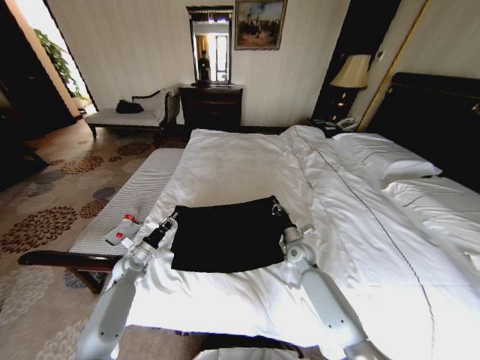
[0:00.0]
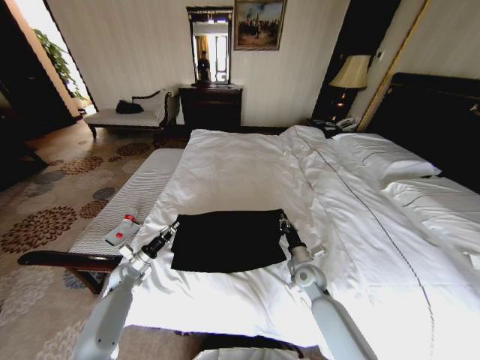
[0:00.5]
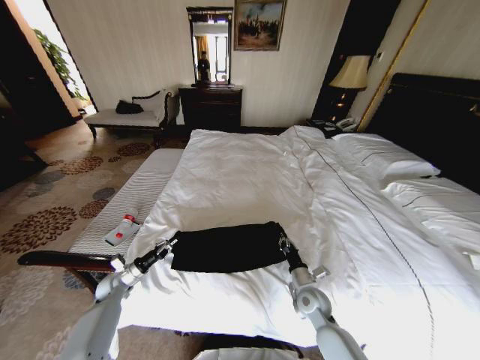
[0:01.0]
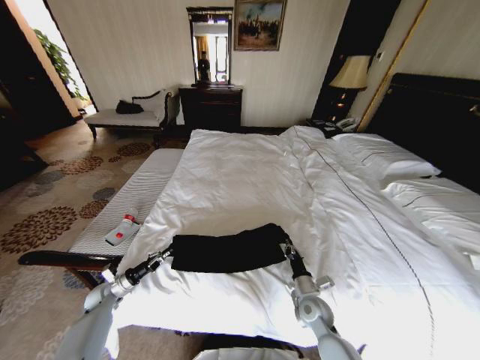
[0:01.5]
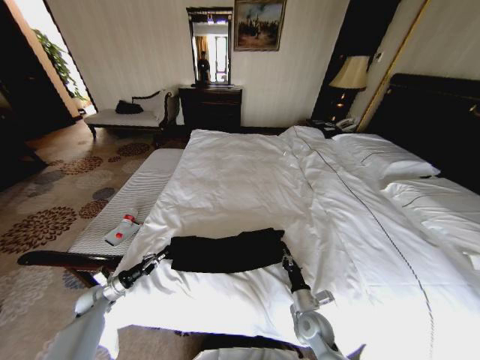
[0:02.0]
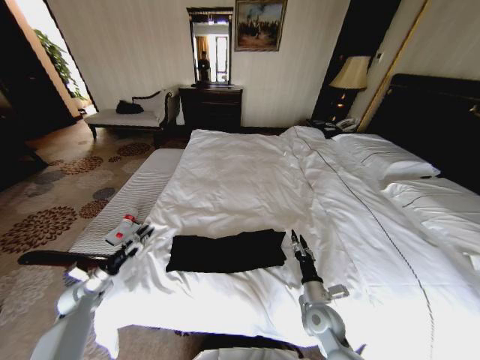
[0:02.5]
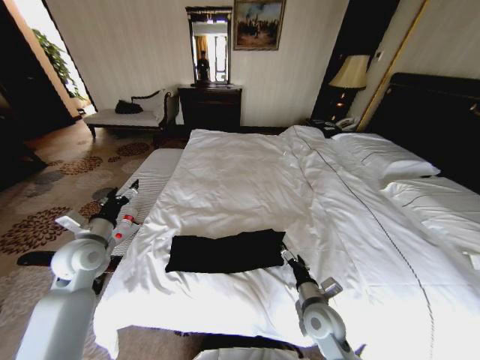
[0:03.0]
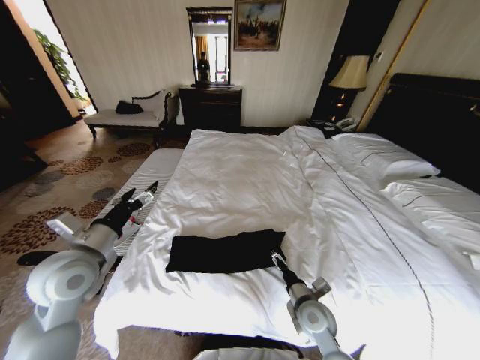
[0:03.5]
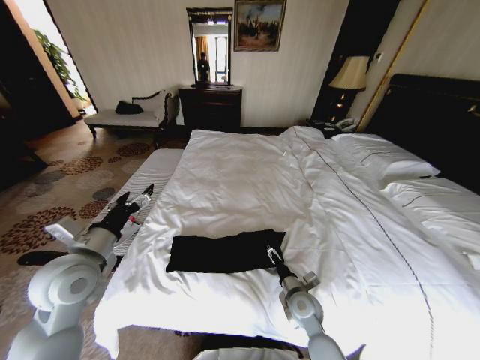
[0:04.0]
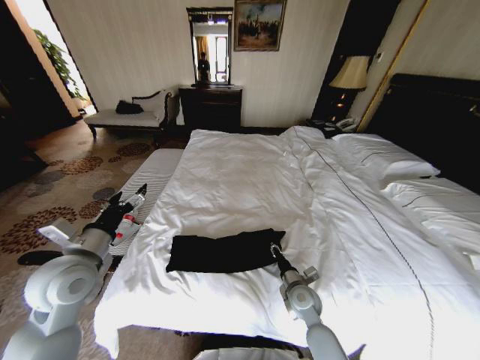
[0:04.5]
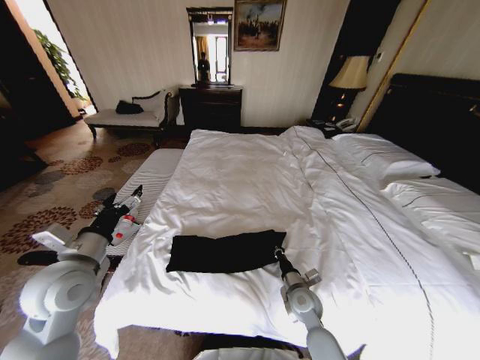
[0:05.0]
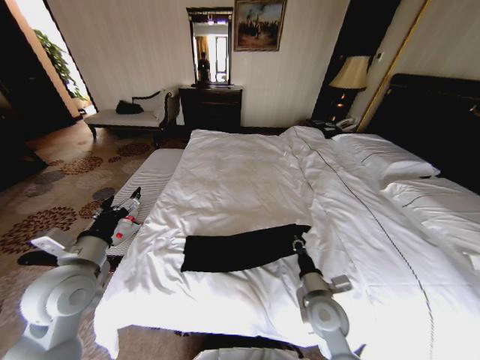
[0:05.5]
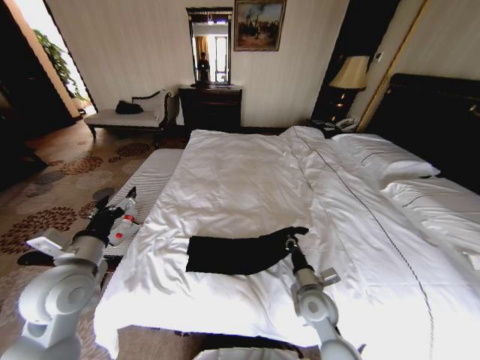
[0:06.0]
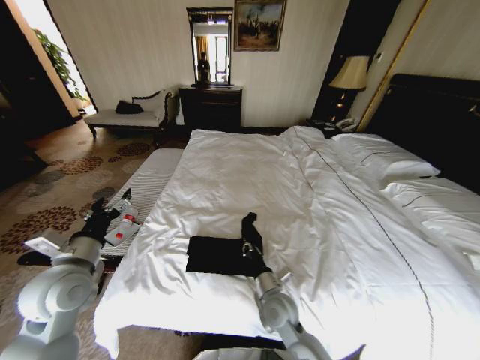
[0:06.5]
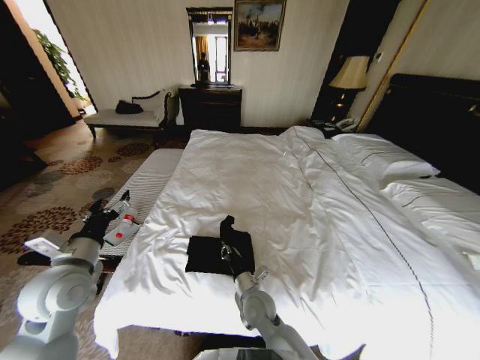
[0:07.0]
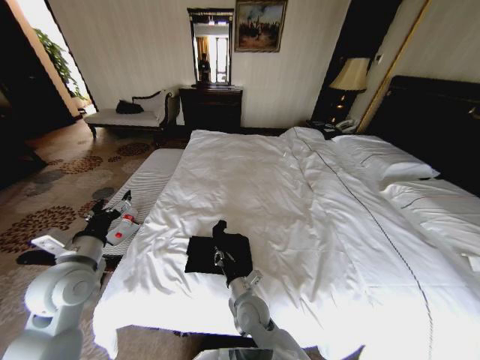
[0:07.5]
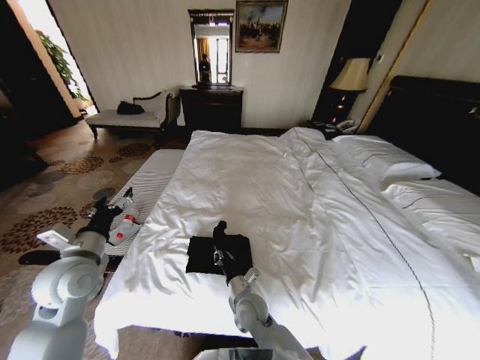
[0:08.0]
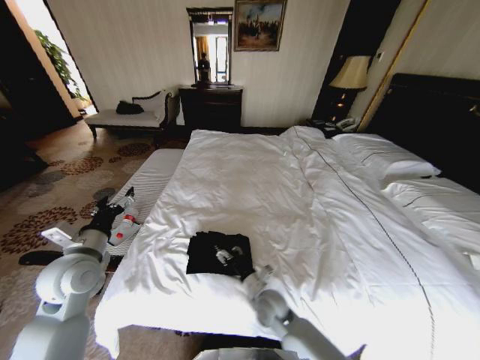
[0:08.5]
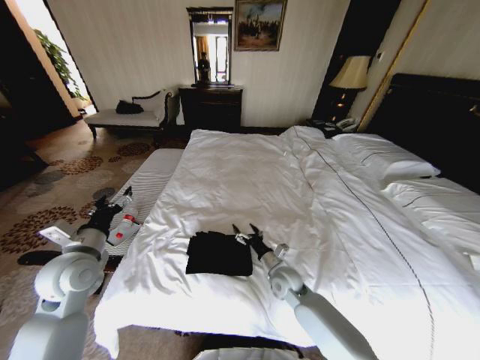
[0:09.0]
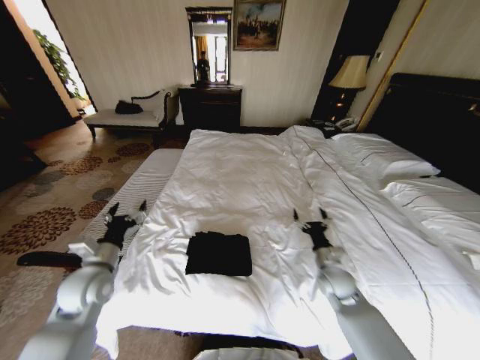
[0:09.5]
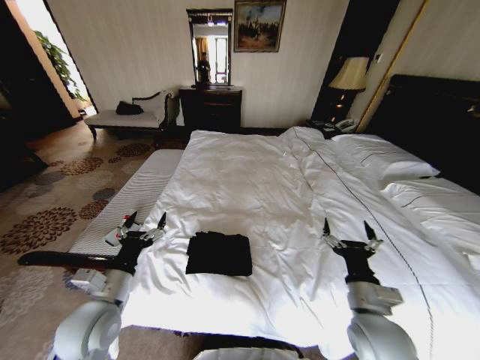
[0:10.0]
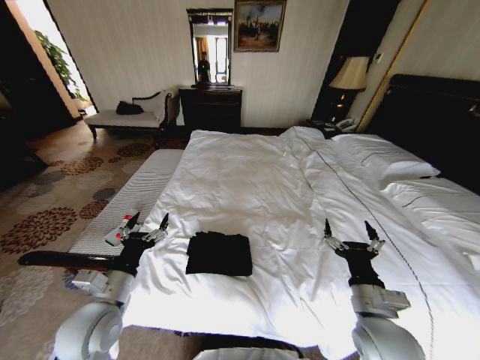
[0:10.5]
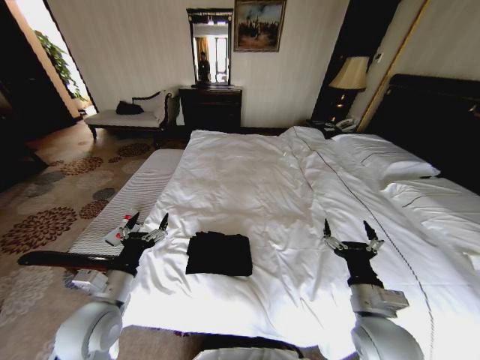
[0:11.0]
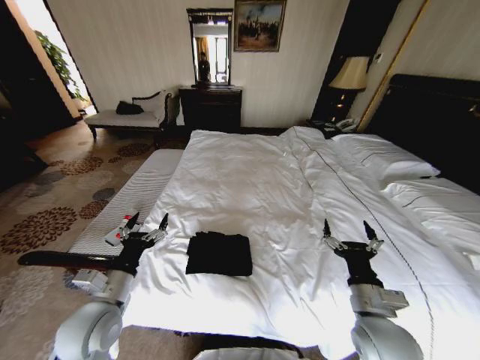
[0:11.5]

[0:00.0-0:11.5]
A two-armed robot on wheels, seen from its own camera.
Task of the whole recording: Fold the clothes on the bed.
0:00.0 to 0:02.0: The right gripper is displaced backward by some 20 cm. The left gripper heads to the left, backward and downward, covering roughly 15 cm.
0:02.0 to 0:04.0: The right gripper moves upward, roughly 5 cm, and opens its fingers. Meanwhile the left gripper goes some 35 cm upward and to the right, and opens.
0:04.0 to 0:06.0: The right gripper travels upward by roughly 5 cm, and closes.
0:06.0 to 0:07.5: The right gripper goes roughly 15 cm to the left.
0:07.5 to 0:09.5: The left gripper heads downward, covering some 5 cm. The right gripper travels to the right by some 25 cm, and opens its fingers.
0:09.5 to 0:11.5: The right gripper moves backward and upward, roughly 20 cm. Meanwhile the left gripper heads backward and to the right, covering some 10 cm.

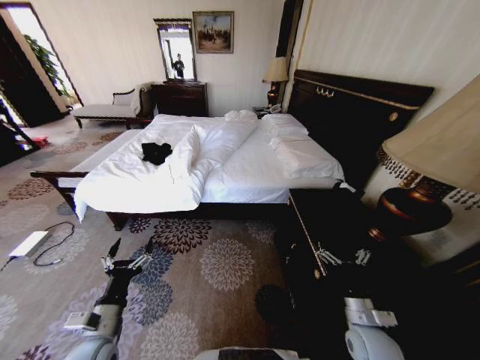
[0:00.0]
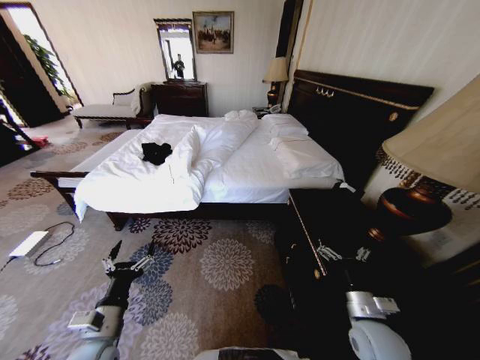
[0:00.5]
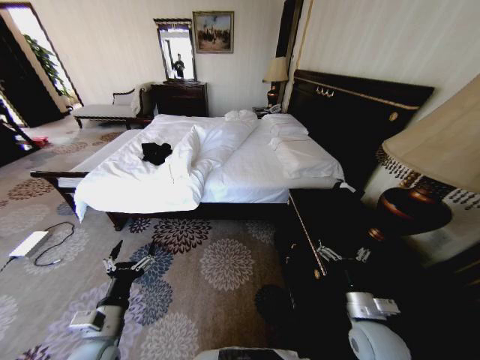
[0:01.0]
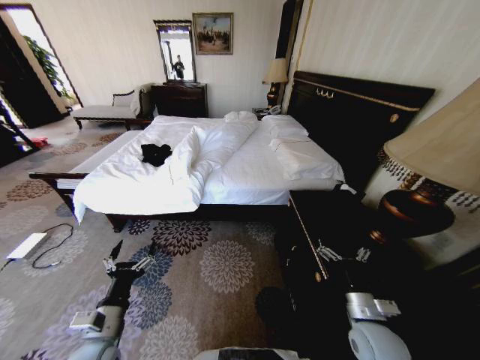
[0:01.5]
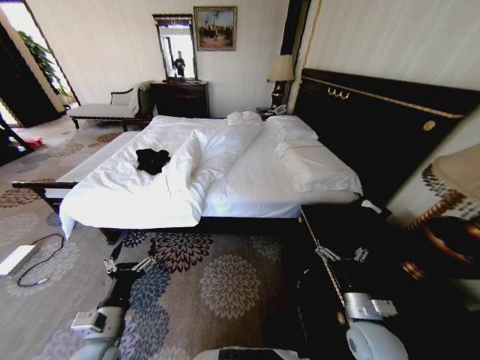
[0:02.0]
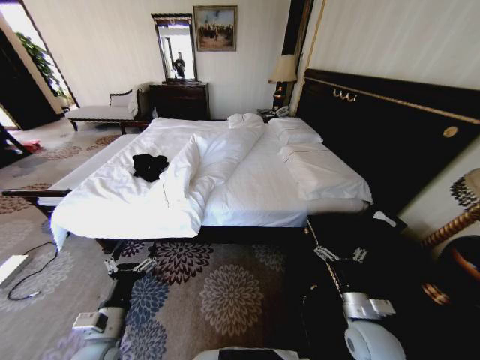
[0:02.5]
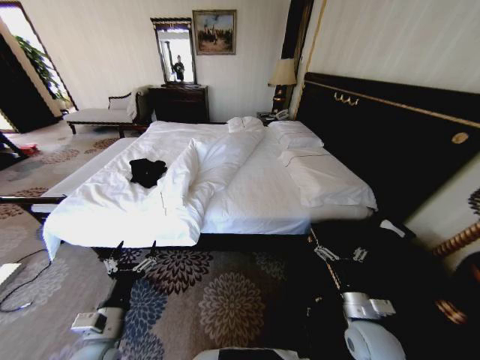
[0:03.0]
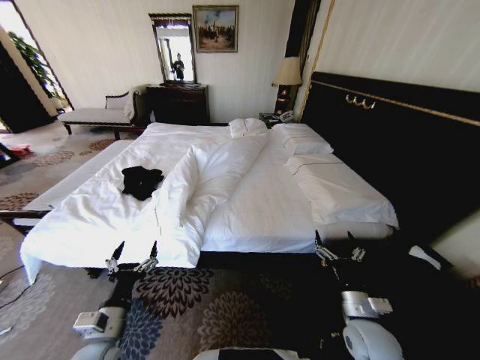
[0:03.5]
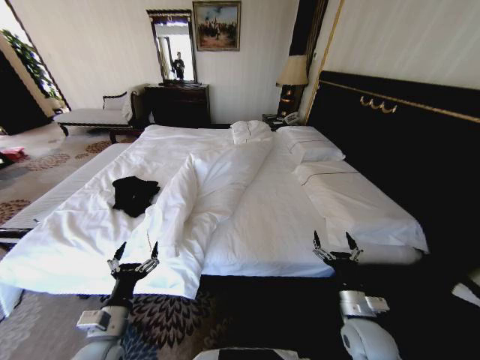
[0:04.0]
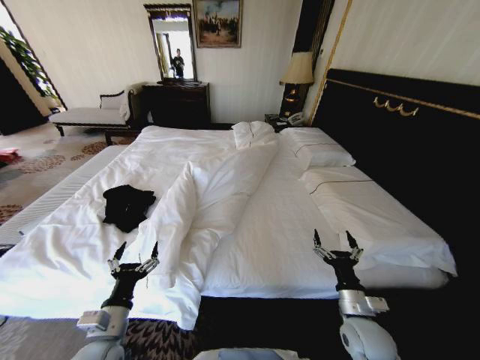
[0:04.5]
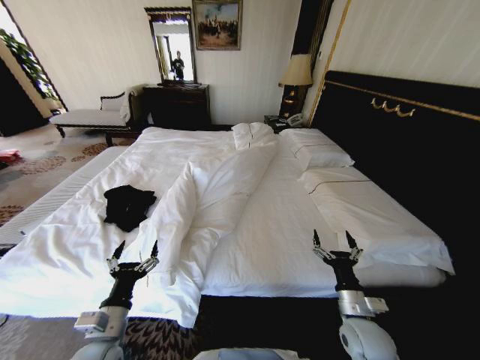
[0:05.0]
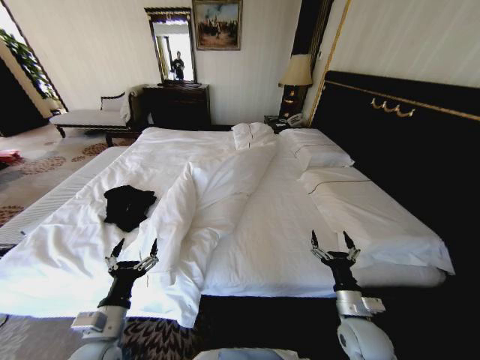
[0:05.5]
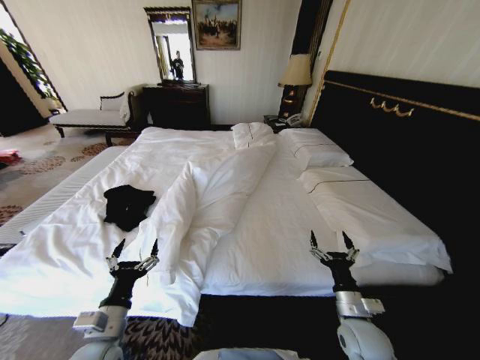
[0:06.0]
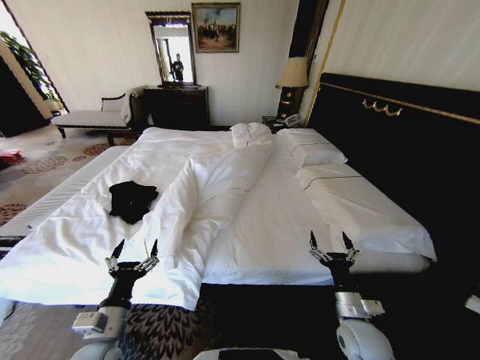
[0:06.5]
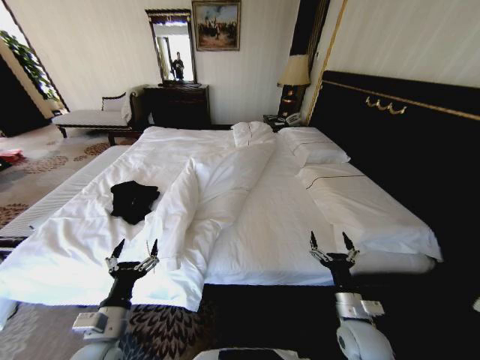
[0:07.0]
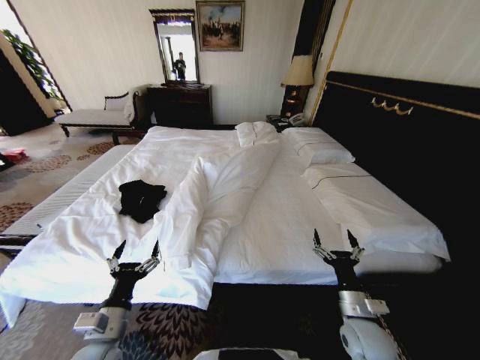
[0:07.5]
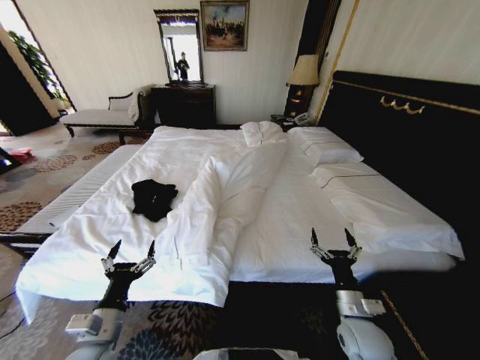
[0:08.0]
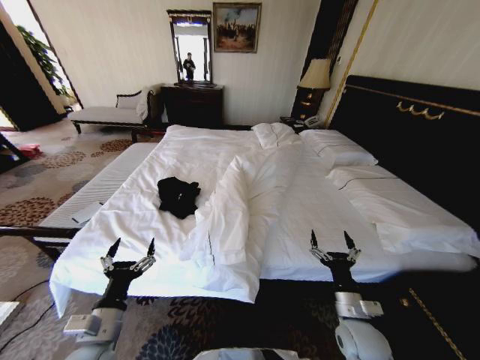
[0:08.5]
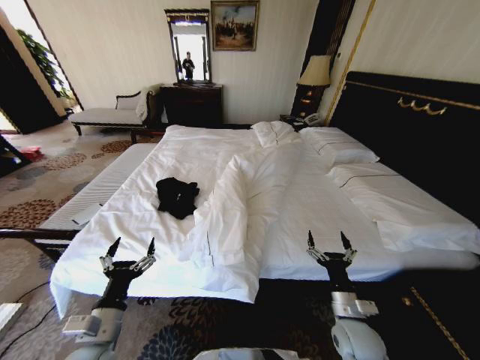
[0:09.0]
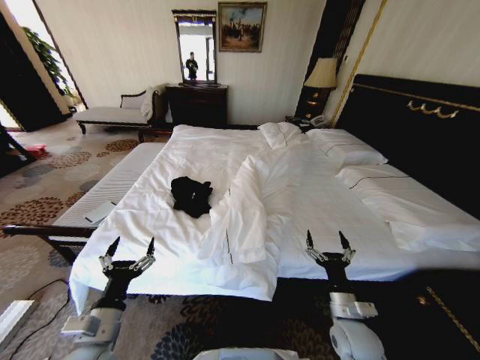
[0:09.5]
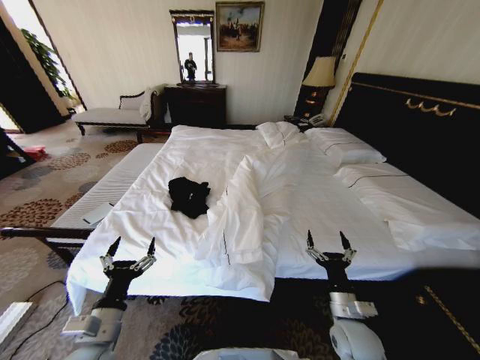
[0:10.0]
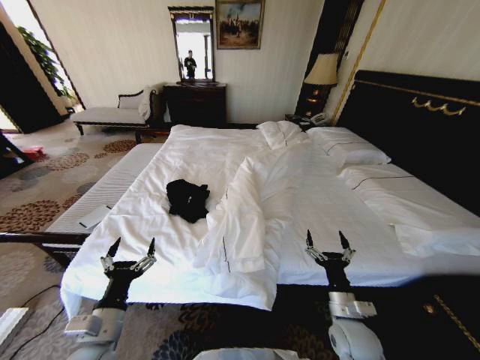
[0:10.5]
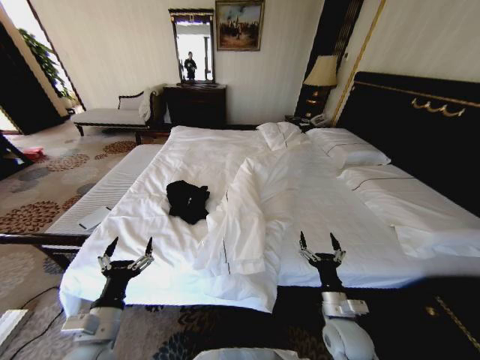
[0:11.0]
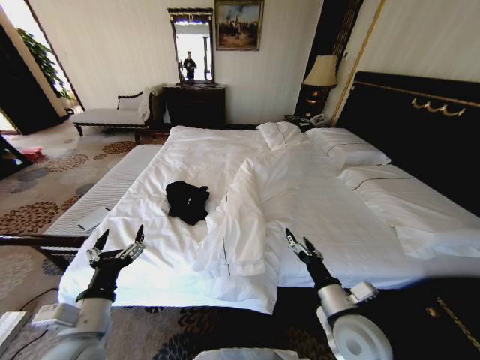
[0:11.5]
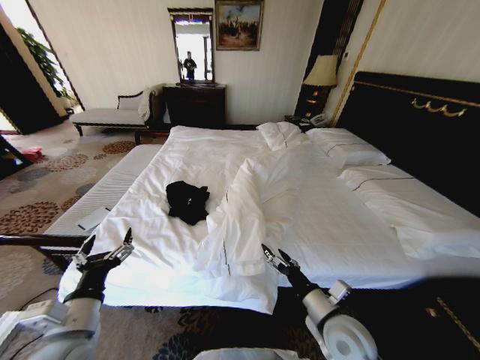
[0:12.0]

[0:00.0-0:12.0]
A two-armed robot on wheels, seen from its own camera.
Task of the whole recording: Fold the clothes on the bed.
0:10.0 to 0:12.0: Both grippers travel together upward, about 5 cm.

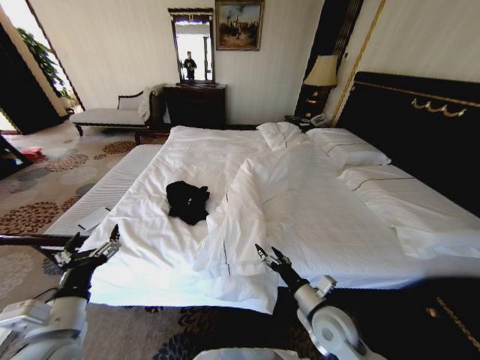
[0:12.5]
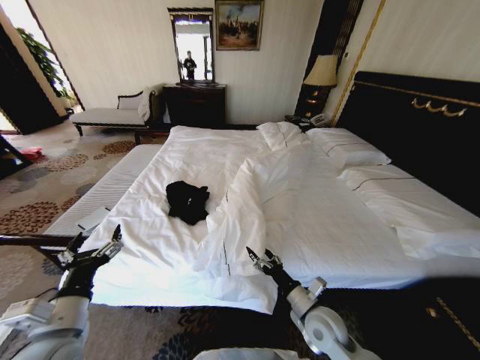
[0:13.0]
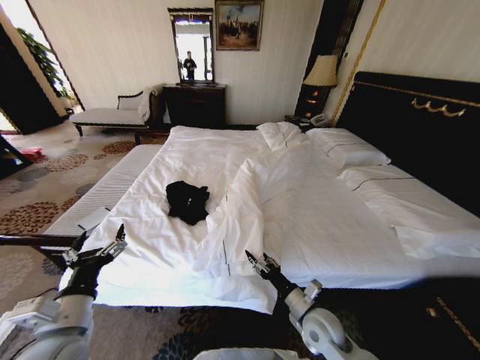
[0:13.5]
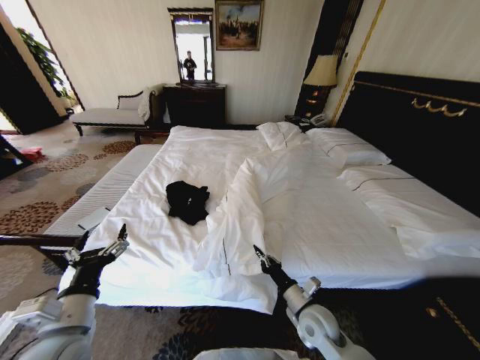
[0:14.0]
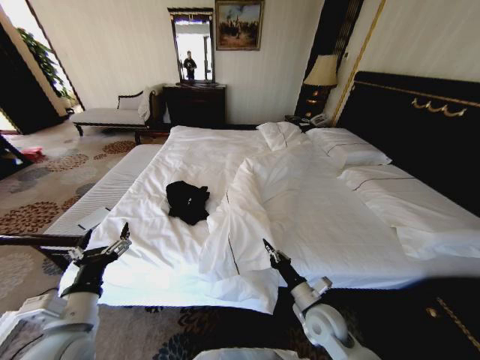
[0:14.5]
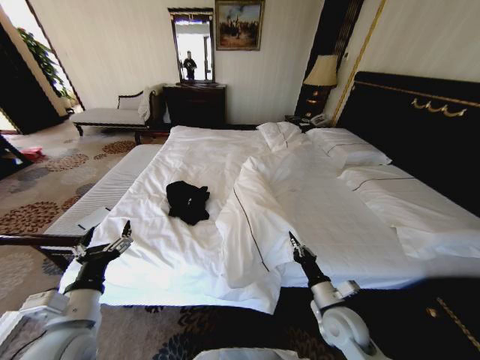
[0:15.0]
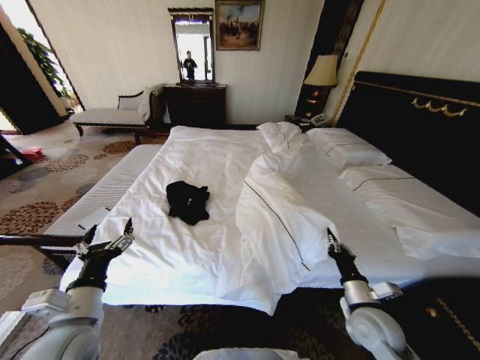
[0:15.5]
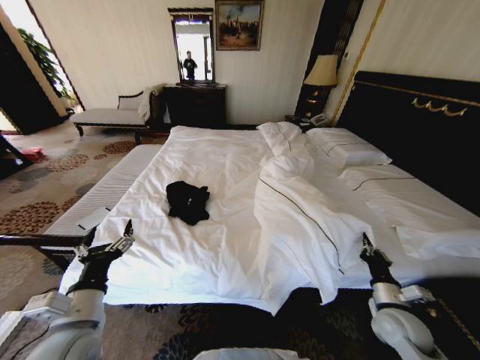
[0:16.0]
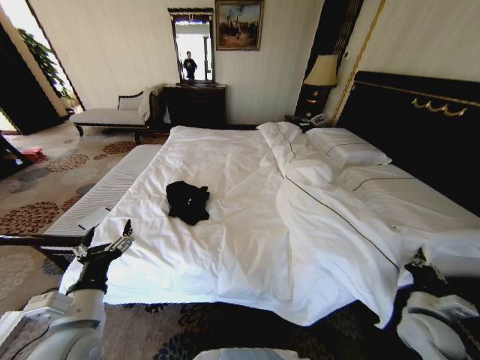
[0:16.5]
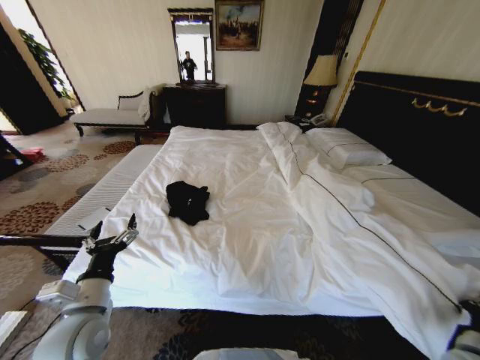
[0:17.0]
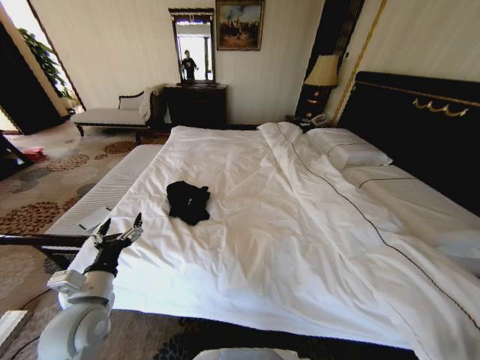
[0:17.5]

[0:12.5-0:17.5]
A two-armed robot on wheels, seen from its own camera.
Task of the whole recording: Fold the clothes on the bed.
0:12.5 to 0:15.0: The right gripper closes up.
0:15.0 to 0:17.5: The right gripper moves to the right and backward, roughly 30 cm.
